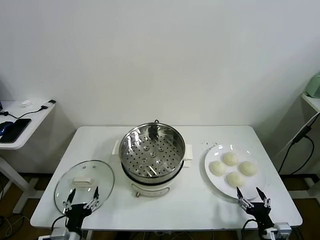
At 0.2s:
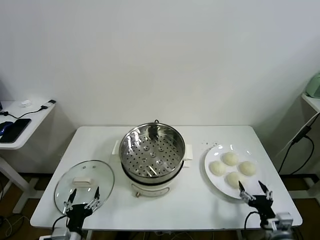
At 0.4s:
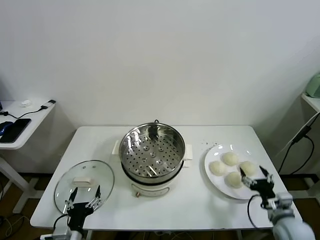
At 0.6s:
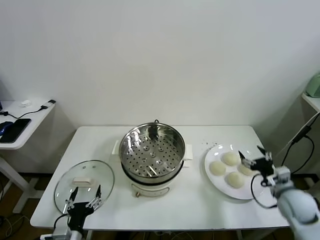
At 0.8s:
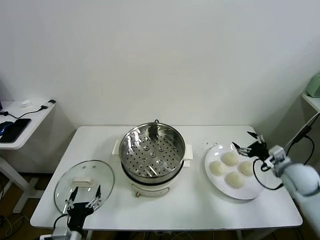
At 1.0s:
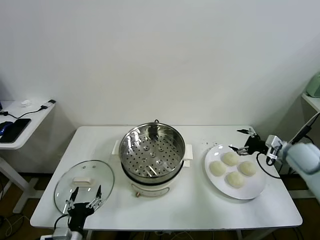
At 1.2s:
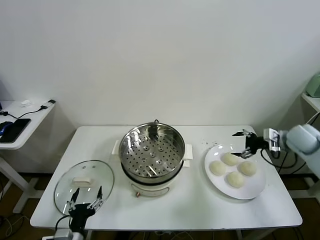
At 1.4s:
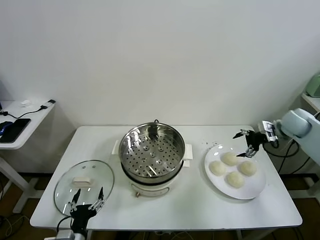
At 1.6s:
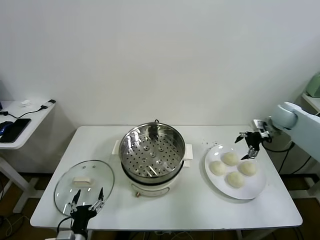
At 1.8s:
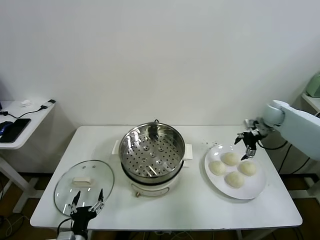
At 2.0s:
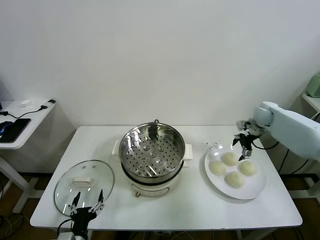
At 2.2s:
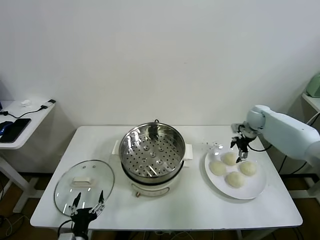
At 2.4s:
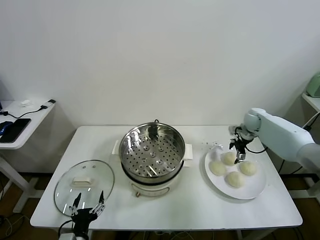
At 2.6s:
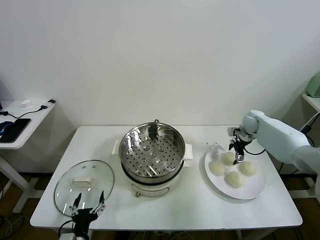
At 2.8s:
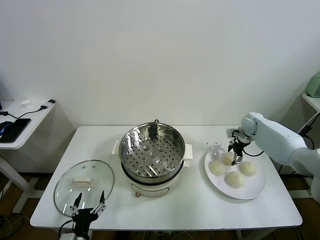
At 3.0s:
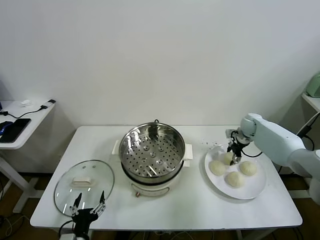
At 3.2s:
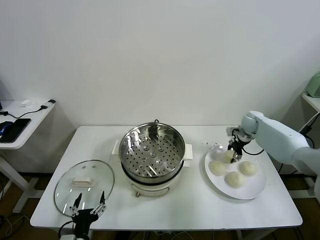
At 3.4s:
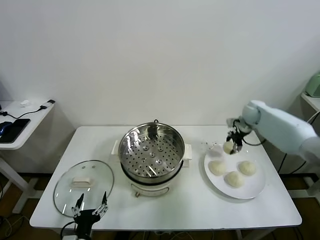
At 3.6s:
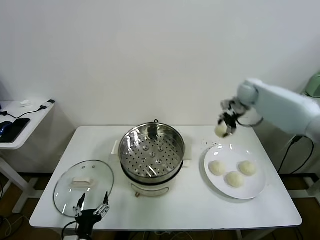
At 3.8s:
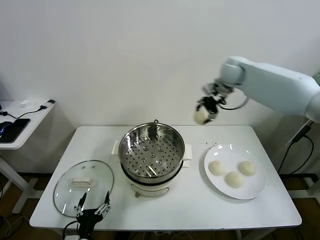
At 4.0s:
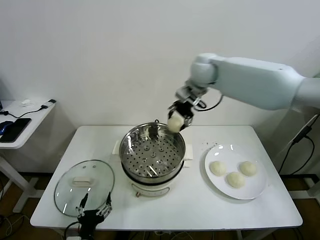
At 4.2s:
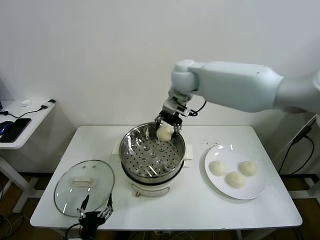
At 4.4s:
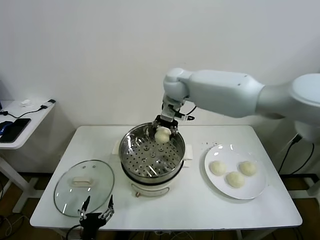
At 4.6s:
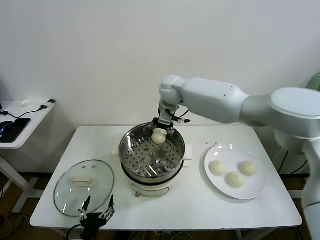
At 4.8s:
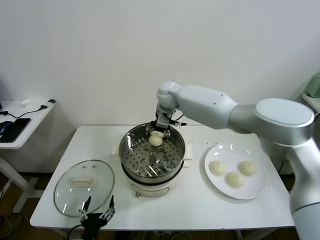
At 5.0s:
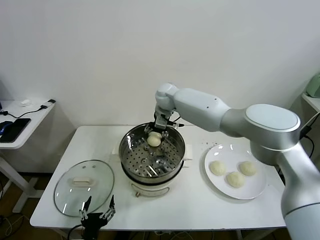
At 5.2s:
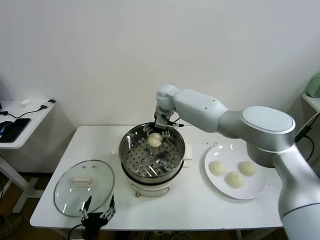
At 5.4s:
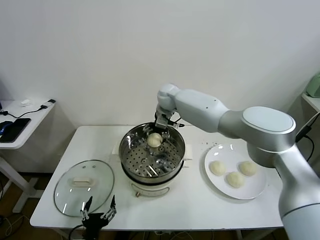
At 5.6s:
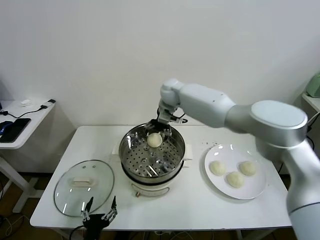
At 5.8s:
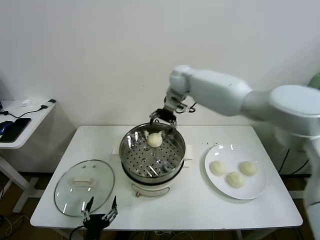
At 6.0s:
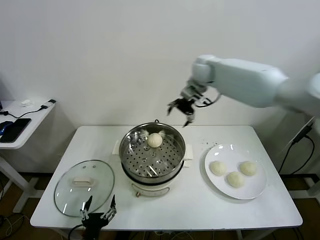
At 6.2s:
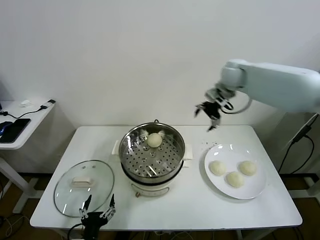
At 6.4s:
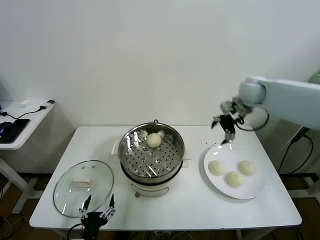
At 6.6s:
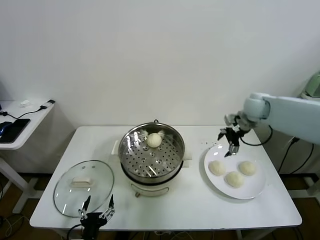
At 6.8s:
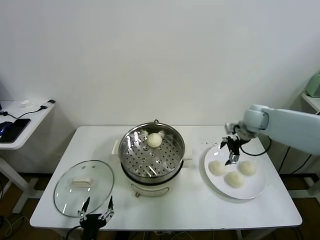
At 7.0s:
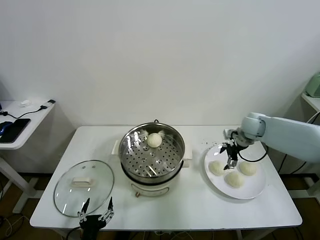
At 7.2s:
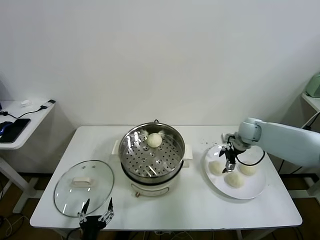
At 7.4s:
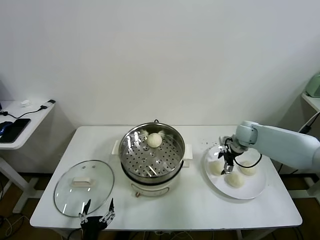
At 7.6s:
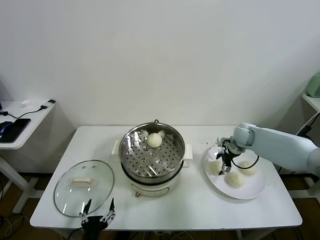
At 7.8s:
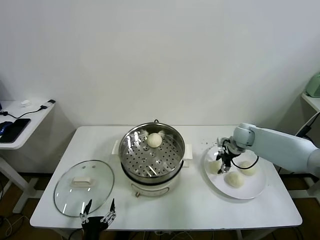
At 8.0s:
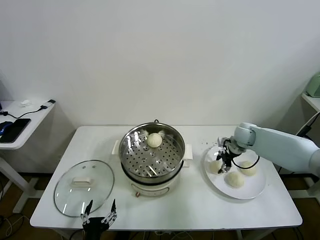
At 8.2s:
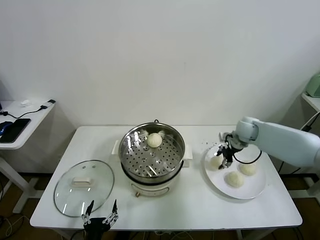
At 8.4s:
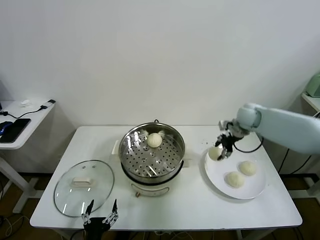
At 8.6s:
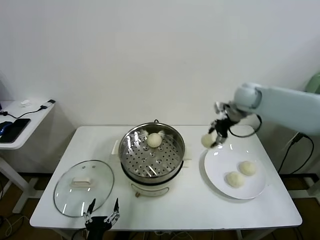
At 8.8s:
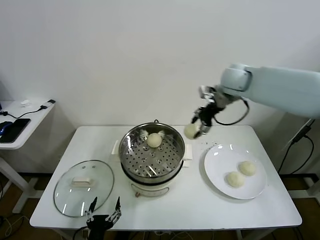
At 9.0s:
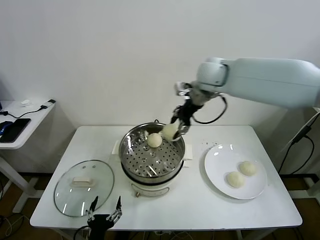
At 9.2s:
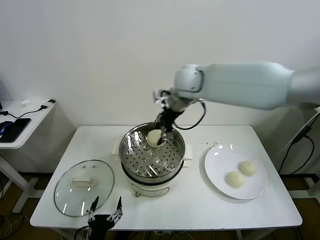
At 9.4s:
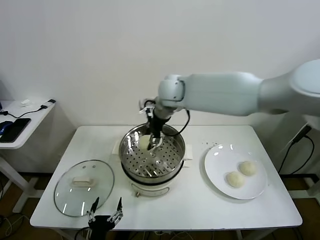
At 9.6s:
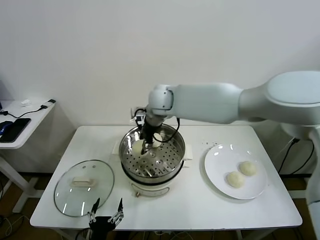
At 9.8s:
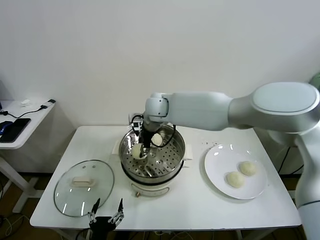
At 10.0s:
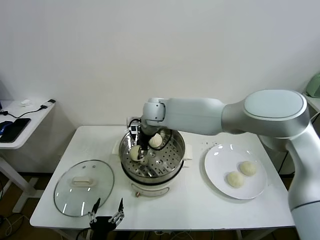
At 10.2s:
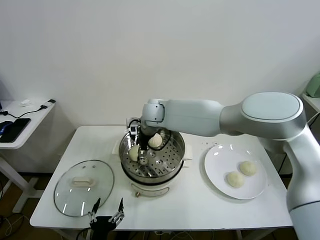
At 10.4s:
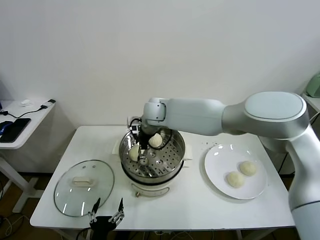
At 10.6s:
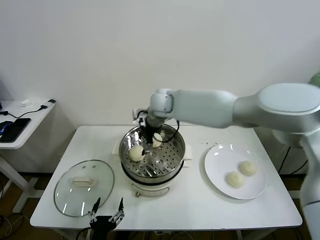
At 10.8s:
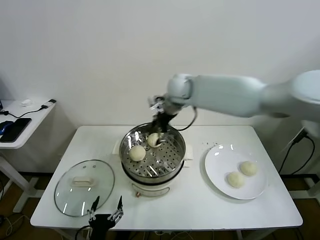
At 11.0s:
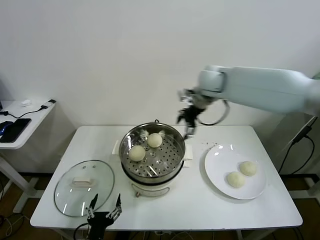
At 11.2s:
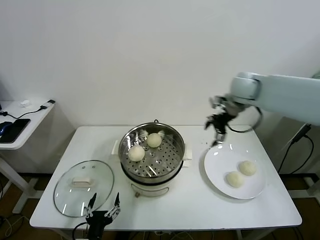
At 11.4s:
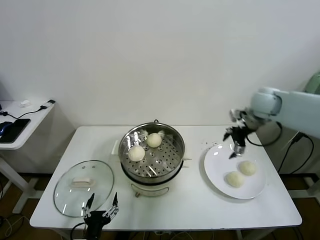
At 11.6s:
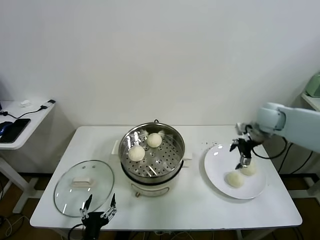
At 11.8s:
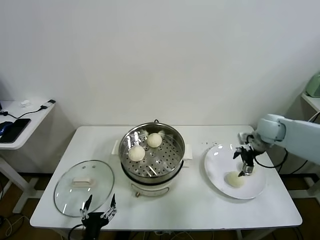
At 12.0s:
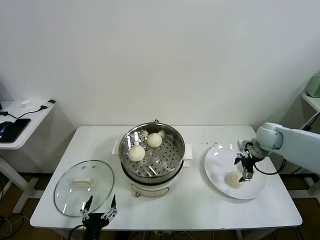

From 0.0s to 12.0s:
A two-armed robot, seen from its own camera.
Task of the whole recording: take steamed baozi put them in steamer.
Step, from 0.0s to 2.8s: Grasp the baozi in the plate with right gripper.
Step, from 3.2s to 5.4s: Place the baozi on the steamer with right gripper.
Step, from 5.6s to 7.8s: Grasp the baozi in the plate with right gripper.
Step, from 8.0s to 10.4s: Place the baozi on the steamer with right gripper.
From 1.6s to 3.0s: The right gripper moves downward, to the left and forward, approximately 15 cm, and closes its fingers.
From 3.0s to 4.4s: The right gripper moves to the left and upward, roughly 40 cm.
From 4.4s to 6.0s: The right gripper travels to the right by about 10 cm, and opens its fingers.
From 6.0s to 7.6s: The right gripper moves downward and to the right, roughly 30 cm.
From 7.6s to 9.0s: The right gripper moves upward and to the left, some 35 cm, and closes up.
From 9.0s to 10.4s: The right gripper heads to the left and downward, covering some 20 cm, and opens up.
From 10.4s to 12.0s: The right gripper is displaced to the right by about 40 cm.

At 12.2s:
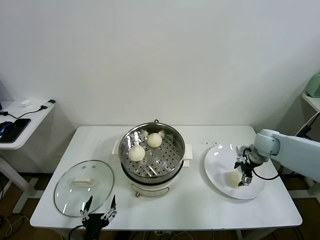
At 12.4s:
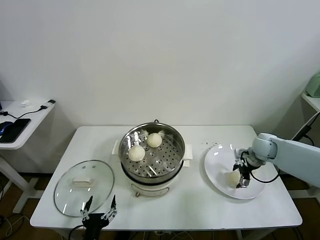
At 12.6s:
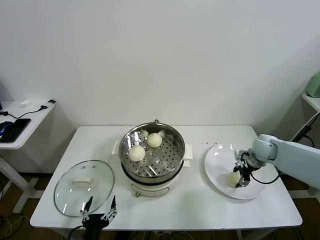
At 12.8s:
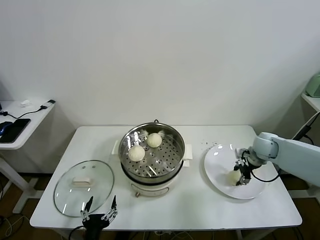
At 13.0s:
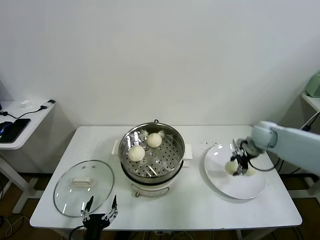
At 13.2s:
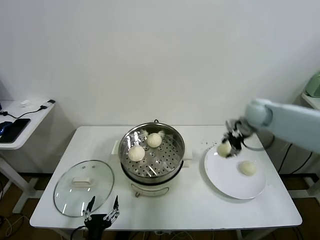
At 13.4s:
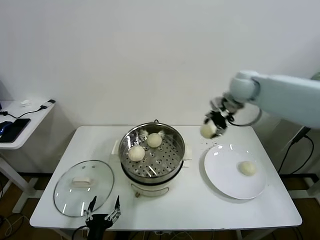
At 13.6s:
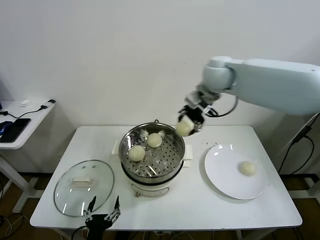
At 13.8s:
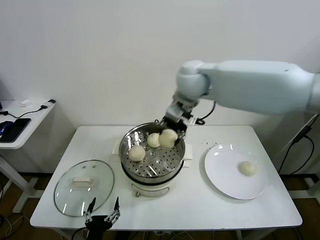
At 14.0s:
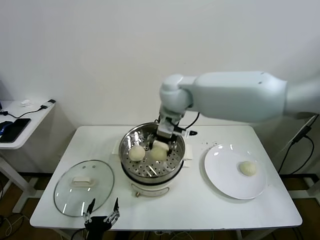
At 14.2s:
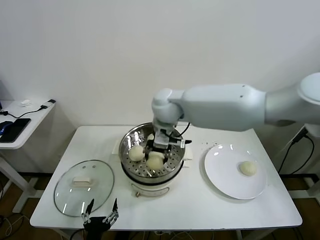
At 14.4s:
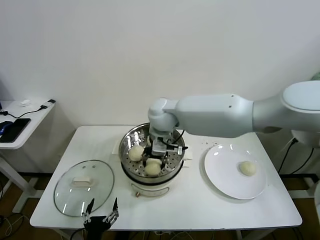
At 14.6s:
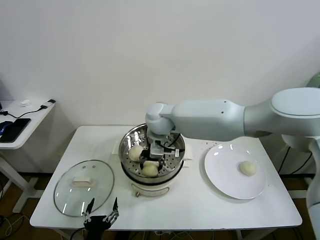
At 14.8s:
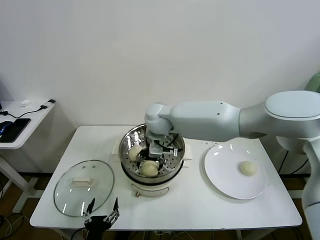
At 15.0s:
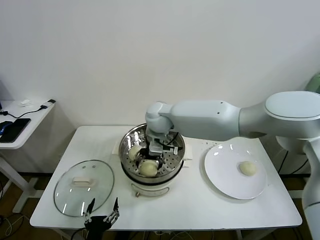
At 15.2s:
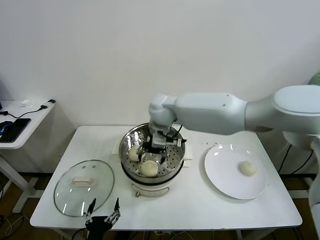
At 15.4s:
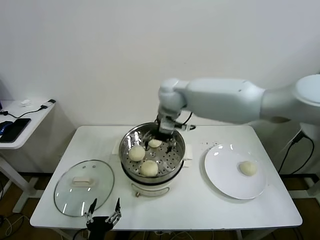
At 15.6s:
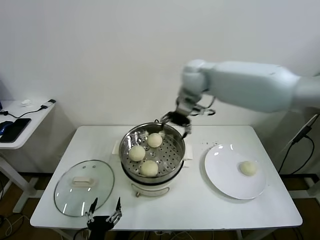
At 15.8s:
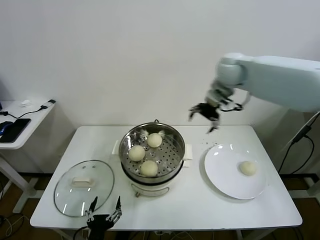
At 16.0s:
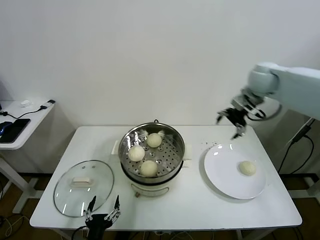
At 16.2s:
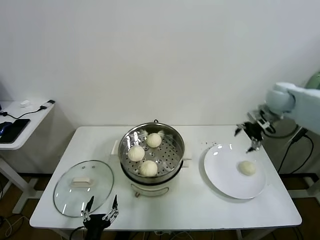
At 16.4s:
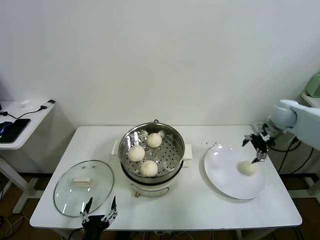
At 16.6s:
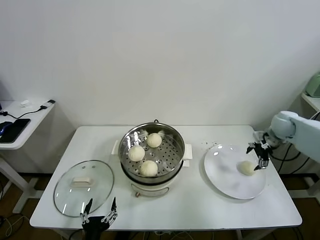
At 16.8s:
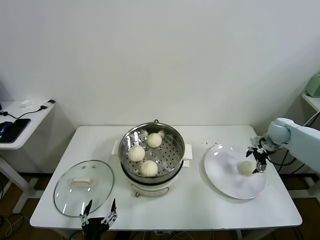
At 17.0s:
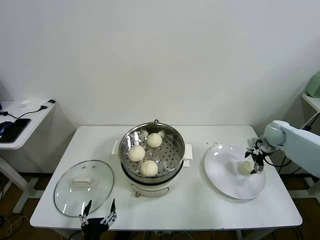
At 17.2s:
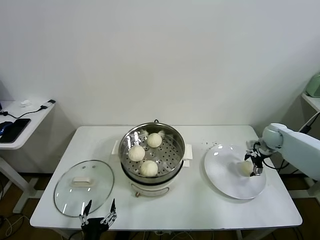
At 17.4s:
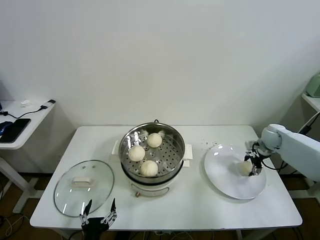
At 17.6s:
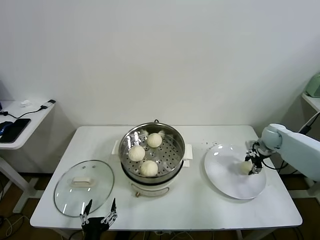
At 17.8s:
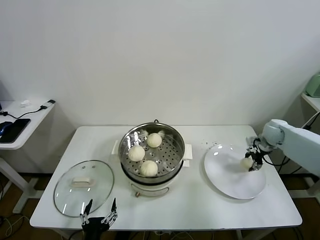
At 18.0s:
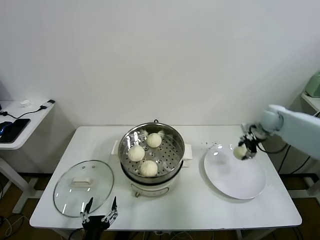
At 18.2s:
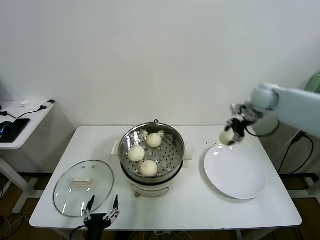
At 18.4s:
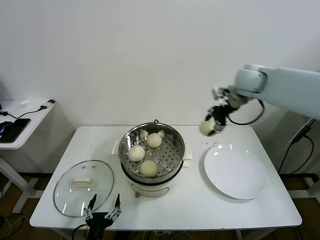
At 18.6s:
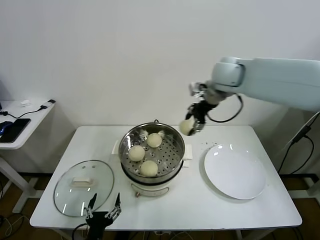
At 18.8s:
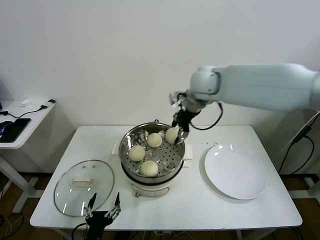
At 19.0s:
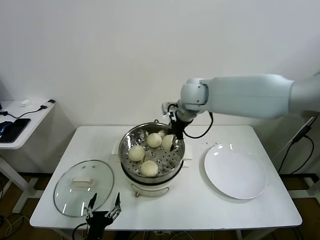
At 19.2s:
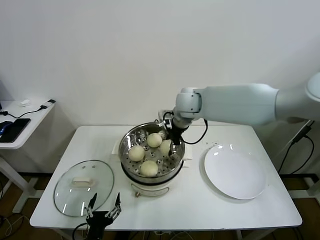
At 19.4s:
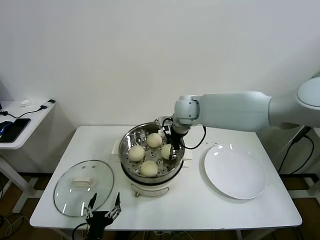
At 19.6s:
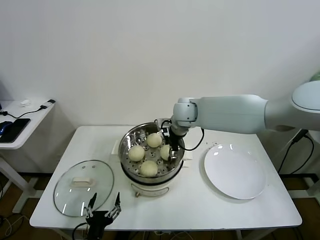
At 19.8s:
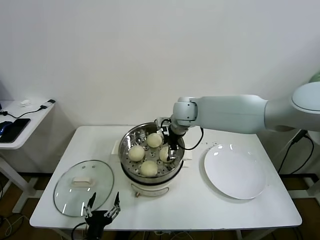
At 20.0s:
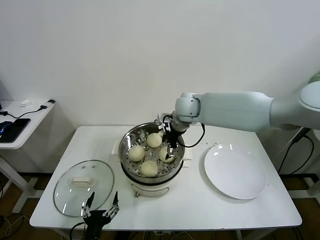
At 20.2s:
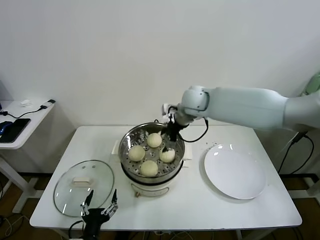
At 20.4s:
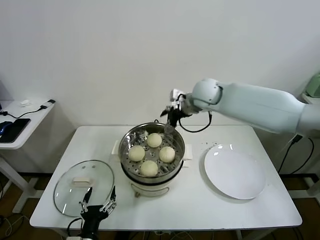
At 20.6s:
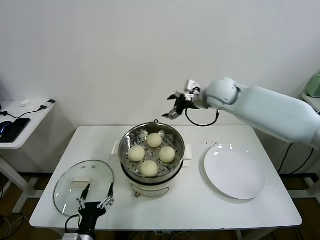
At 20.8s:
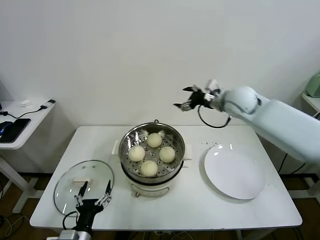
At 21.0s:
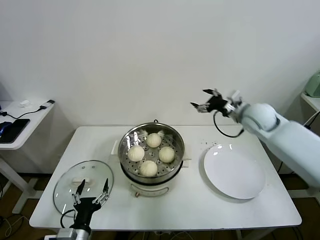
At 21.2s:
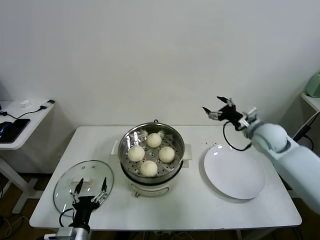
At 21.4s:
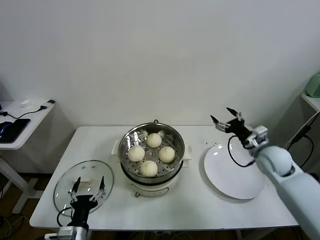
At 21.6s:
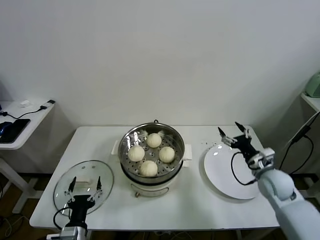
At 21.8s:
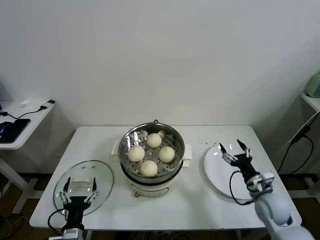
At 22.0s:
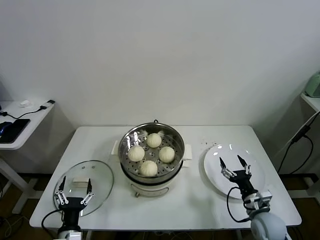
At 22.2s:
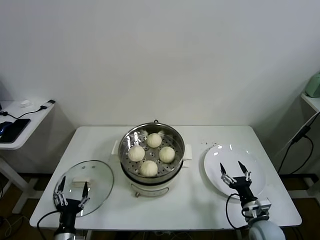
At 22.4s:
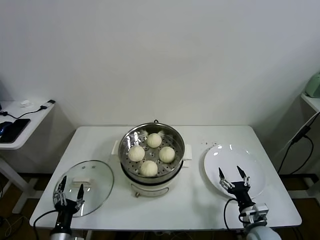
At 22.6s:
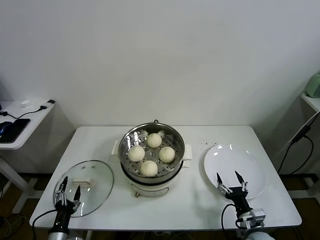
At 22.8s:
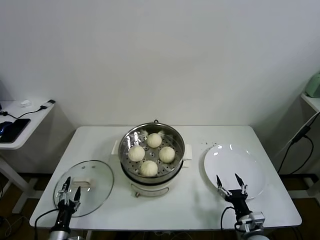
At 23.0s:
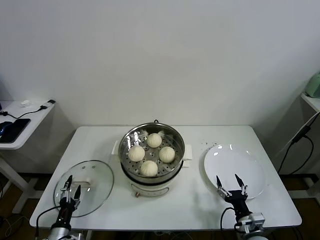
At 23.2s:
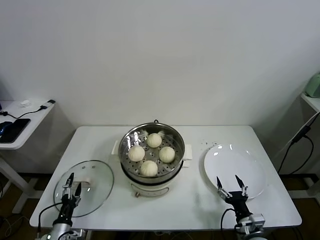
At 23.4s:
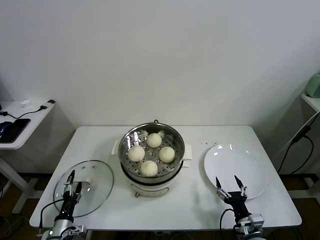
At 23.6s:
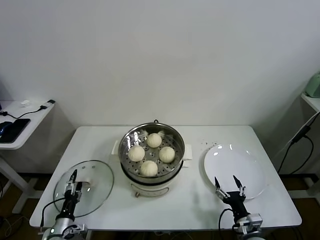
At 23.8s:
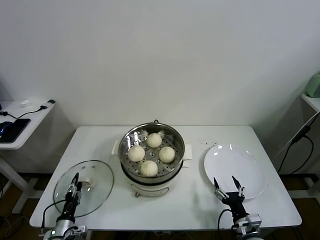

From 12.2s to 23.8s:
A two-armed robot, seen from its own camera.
Task of the whole recording: take steamed baozi put them in steamer.
Step, from 12.8s to 15.0s: Place the baozi on the steamer with right gripper.
Step, from 15.2s to 17.6s: Grasp the baozi in the plate with right gripper.
Step, from 17.8s to 19.8s: Place the baozi on the steamer with right gripper.
From 12.2s to 13.6s: The right gripper heads upward and to the left, covering roughly 35 cm, and closes.
From 13.6s to 15.0s: The right gripper travels to the left and downward by about 25 cm, and opens up.
From 15.0s to 16.6s: The right gripper heads to the right, covering some 50 cm.
From 16.6s to 18.0s: The right gripper goes downward and returns, approximately 10 cm each way, and closes.
From 18.0s to 19.4s: The right gripper shifts roughly 35 cm to the left.
From 19.4s to 21.0s: The right gripper goes roughly 20 cm to the right, and opens up.
From 21.0s to 22.4s: The right gripper travels downward and backward by roughly 40 cm; the left gripper goes some 10 cm to the left and downward.
From 22.4s to 23.8s: The left gripper heads downward, forward and to the left, covering some 10 cm, and closes up.
